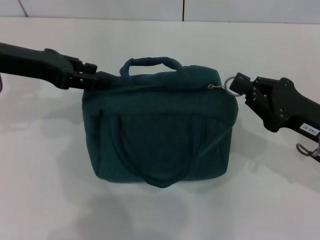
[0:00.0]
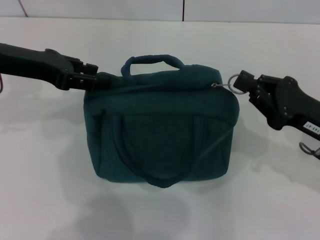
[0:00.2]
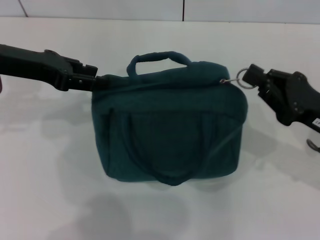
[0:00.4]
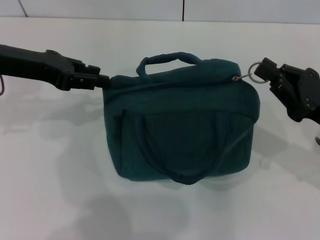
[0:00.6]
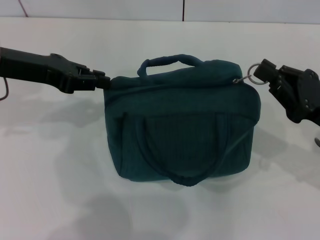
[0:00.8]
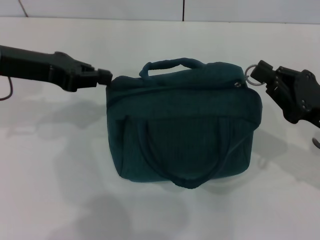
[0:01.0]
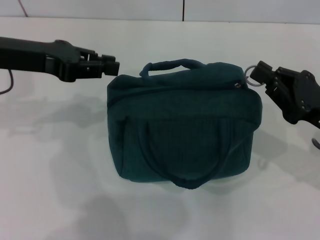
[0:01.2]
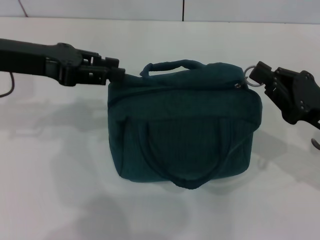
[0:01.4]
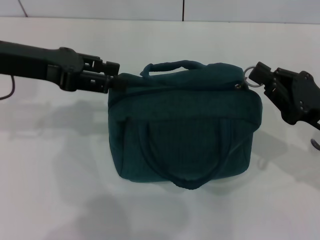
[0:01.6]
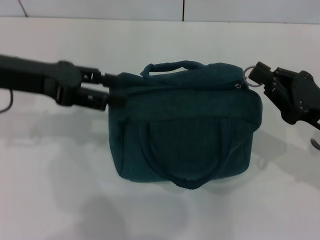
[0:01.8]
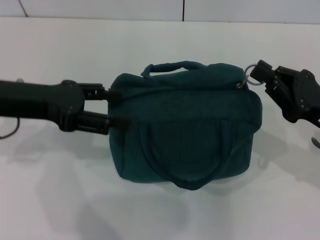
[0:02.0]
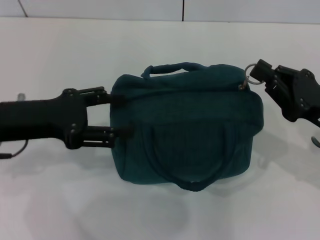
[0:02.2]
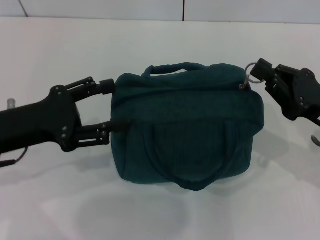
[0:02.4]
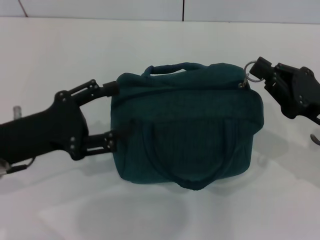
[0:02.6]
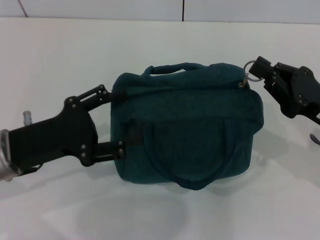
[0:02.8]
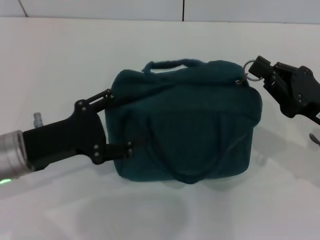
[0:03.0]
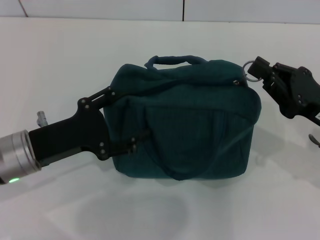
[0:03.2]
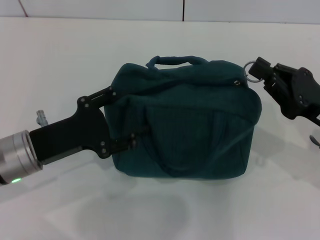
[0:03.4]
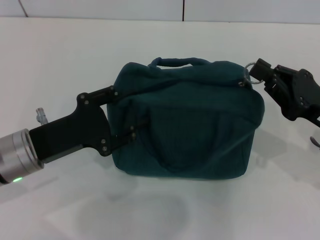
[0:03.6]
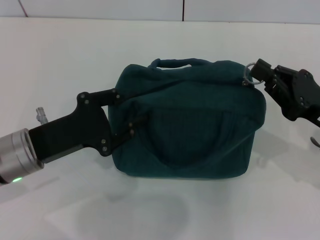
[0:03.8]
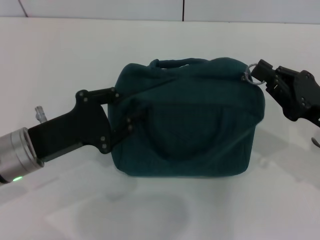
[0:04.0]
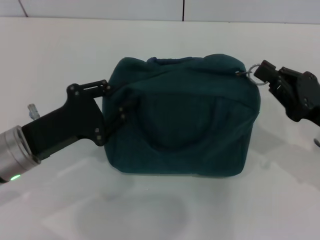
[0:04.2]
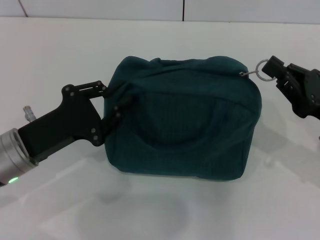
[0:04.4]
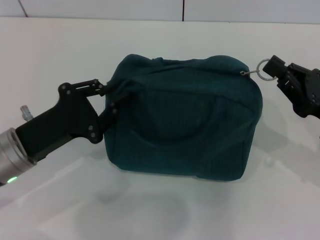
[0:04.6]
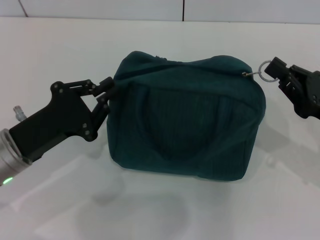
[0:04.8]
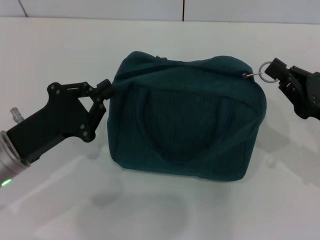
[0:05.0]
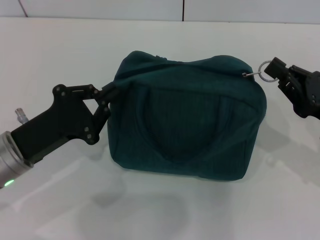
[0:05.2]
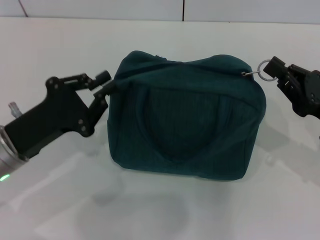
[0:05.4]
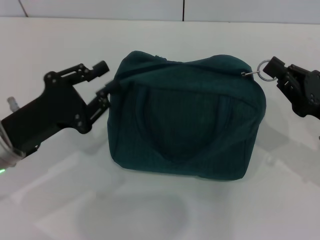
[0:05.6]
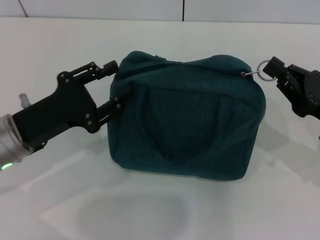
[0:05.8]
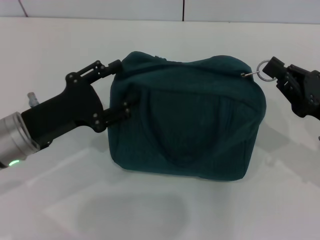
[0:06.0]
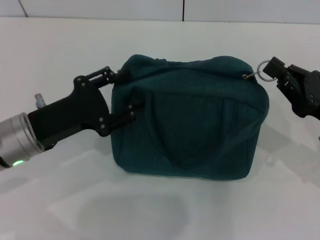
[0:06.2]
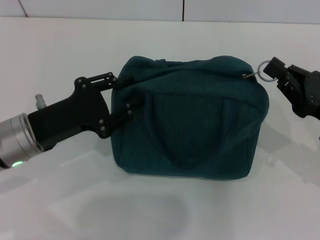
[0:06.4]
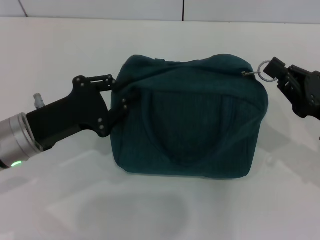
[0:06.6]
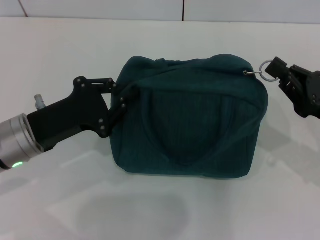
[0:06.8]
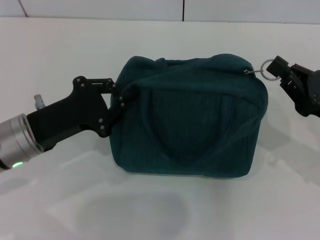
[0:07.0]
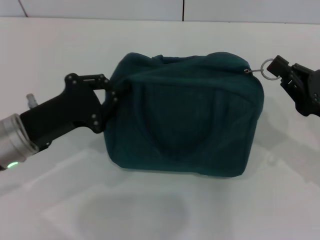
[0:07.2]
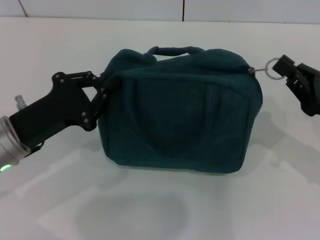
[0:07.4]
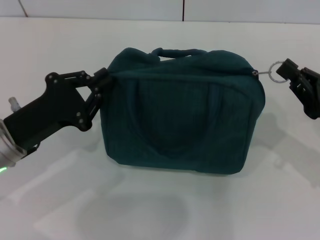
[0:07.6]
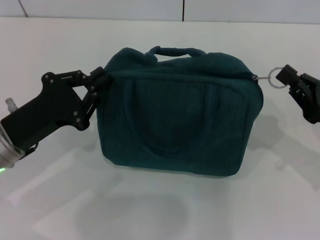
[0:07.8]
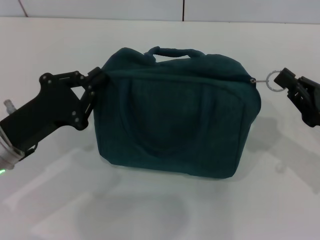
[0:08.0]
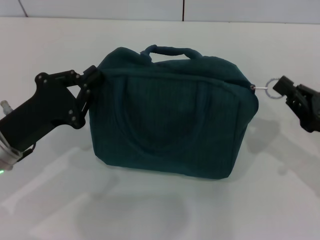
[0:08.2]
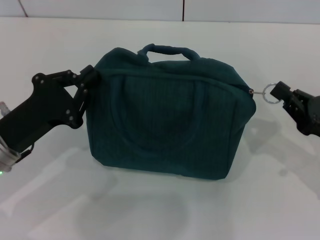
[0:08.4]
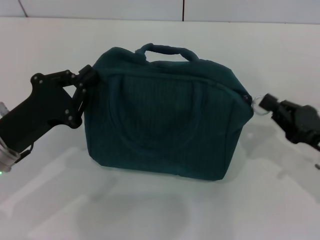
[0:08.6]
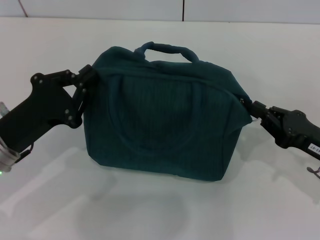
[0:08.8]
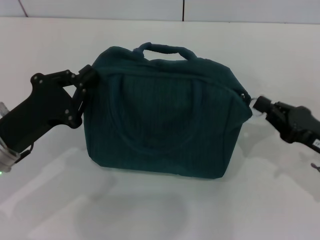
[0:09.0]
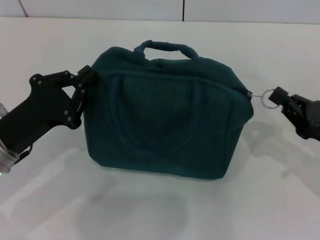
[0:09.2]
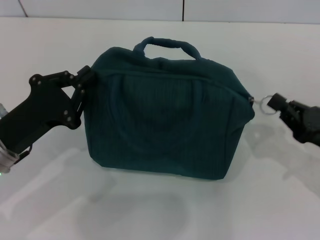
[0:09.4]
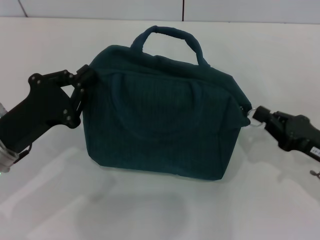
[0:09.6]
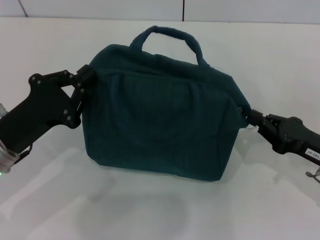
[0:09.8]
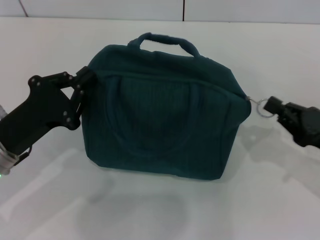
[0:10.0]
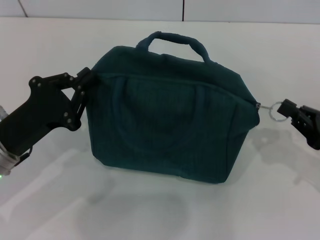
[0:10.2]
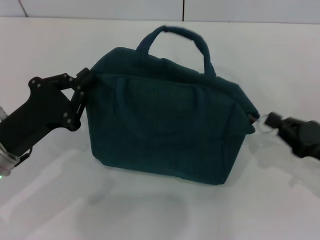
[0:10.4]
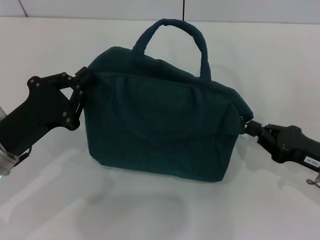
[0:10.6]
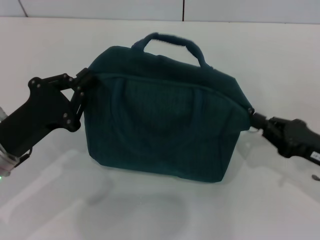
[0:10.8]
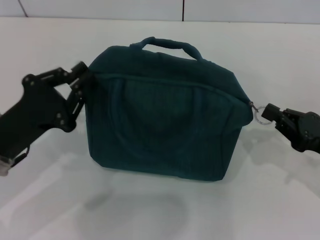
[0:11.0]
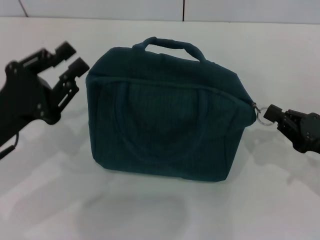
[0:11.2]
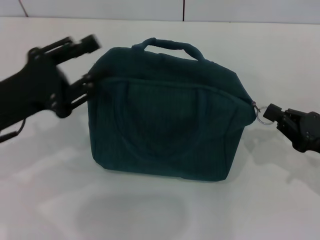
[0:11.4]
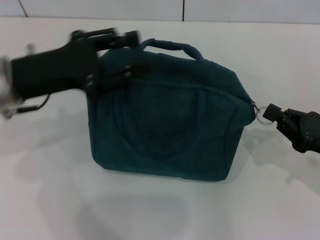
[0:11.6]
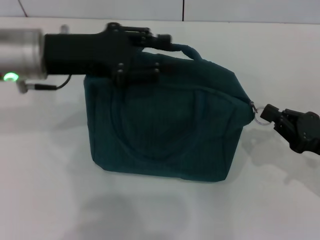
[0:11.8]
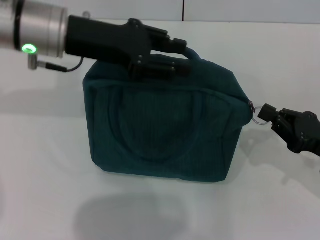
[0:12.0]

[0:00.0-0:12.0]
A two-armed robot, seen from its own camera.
0:00.0 to 0:01.6: The grippers stay close to where they were, moving slightly.
0:01.6 to 0:03.0: The left gripper goes about 15 cm downward and backward, and opens its fingers.
0:03.0 to 0:04.4: The left gripper closes its fingers.
0:04.4 to 0:06.0: The grippers stay close to where they were, moving slightly.
0:06.0 to 0:07.6: The left gripper closes up.
0:07.6 to 0:10.4: There are only small adjustments of the grippers.
0:10.4 to 0:12.0: The left gripper goes approximately 20 cm upward, forward and to the right, and opens its fingers.

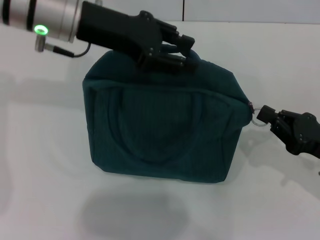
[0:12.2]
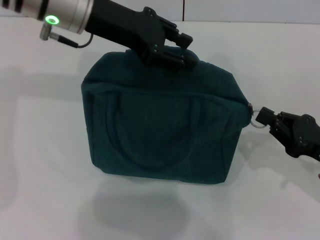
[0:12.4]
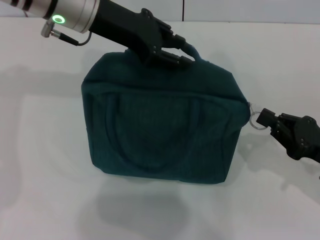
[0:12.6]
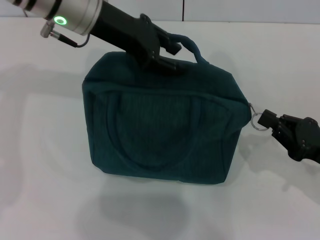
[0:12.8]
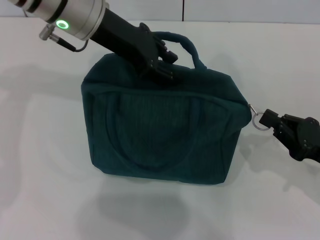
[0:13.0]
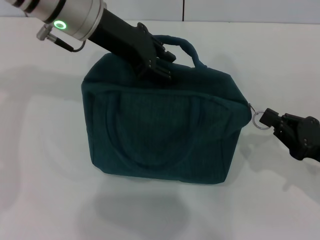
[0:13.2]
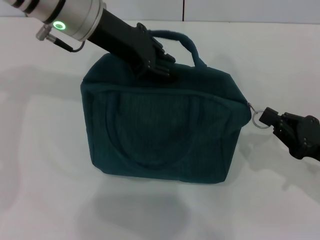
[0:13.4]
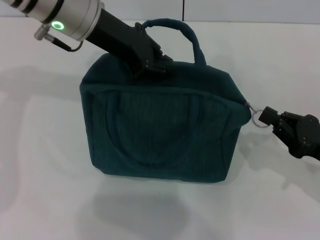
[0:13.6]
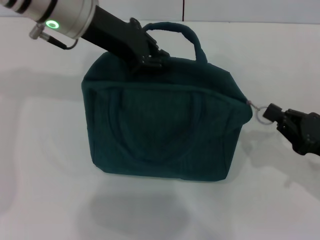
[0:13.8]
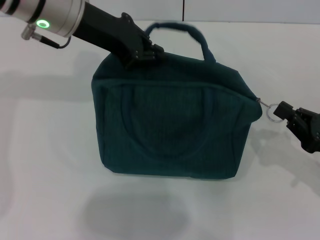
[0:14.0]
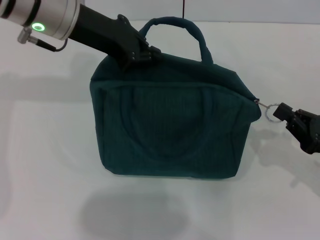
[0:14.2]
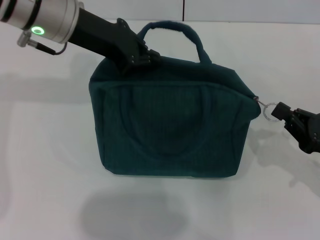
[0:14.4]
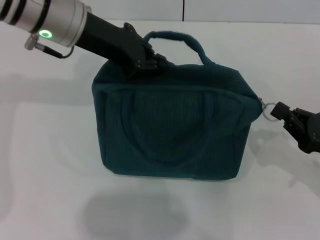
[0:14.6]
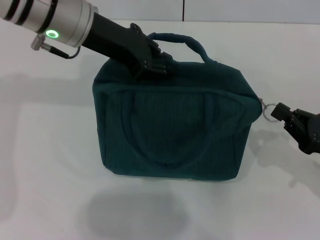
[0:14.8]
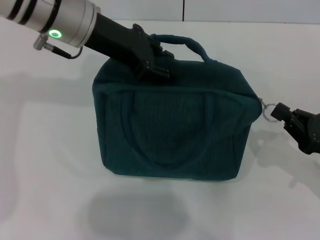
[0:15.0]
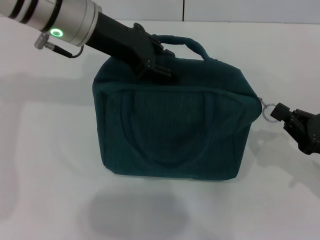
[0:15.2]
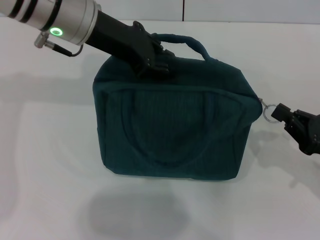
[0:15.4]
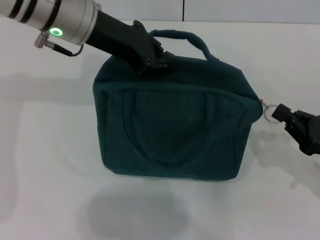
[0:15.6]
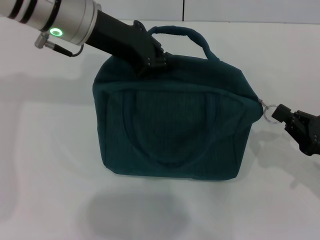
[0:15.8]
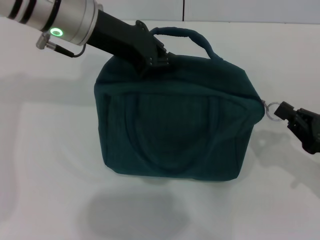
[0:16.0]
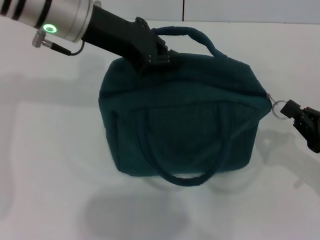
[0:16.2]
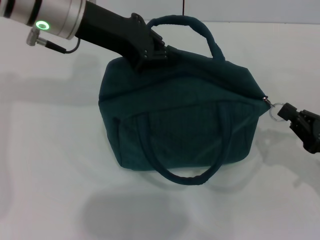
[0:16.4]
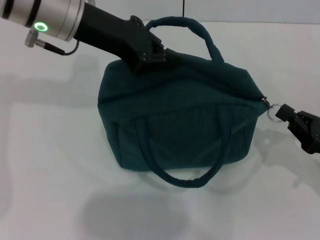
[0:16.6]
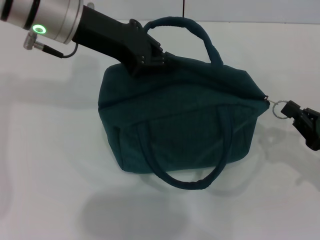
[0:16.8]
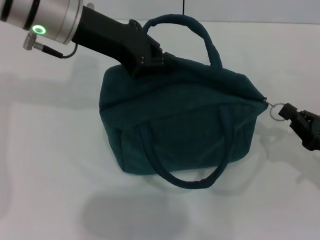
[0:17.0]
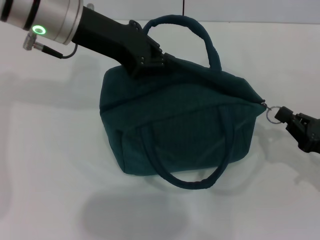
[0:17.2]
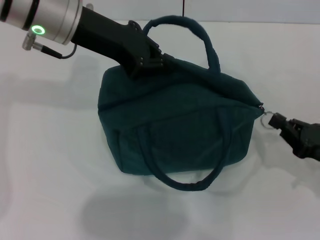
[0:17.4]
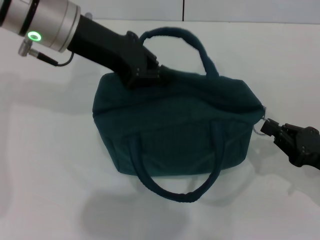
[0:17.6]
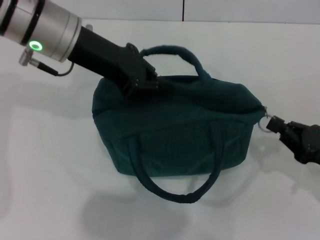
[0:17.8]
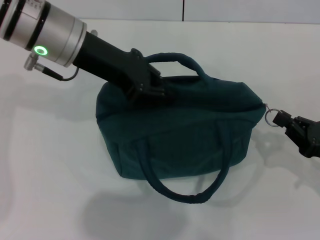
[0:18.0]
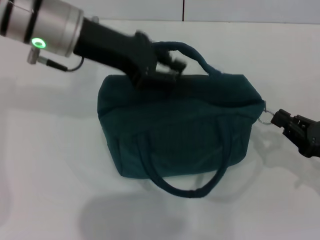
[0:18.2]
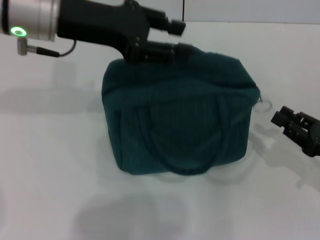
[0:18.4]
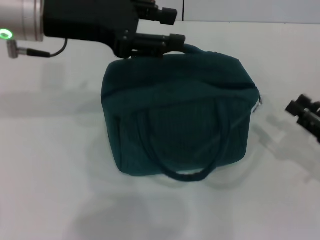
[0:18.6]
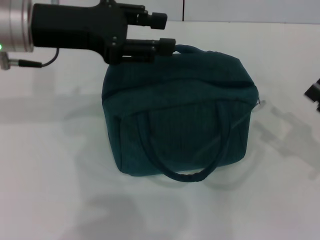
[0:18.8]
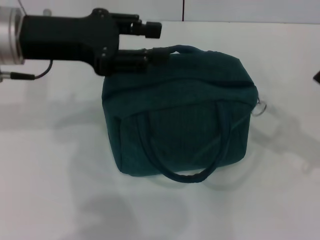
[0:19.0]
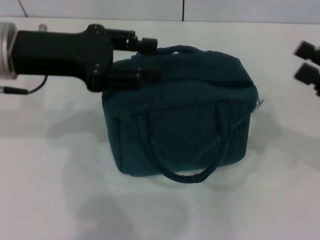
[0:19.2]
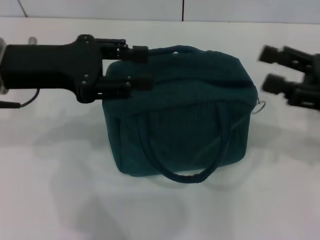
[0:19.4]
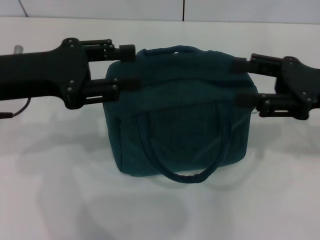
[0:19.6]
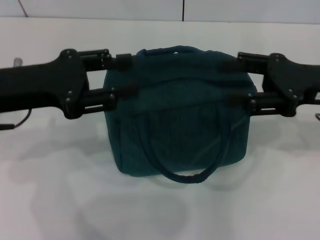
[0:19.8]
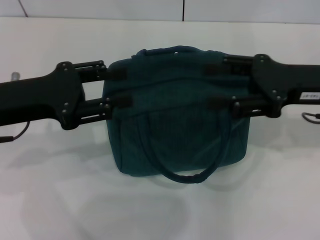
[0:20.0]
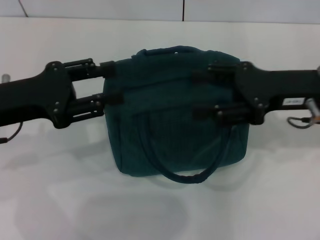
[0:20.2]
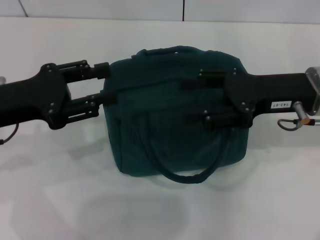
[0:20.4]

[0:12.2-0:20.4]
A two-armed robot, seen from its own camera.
Step, 0:12.2 to 0:18.0: Hold the lunch bag with your left hand.
0:12.2 to 0:13.8: The left gripper closes its fingers.
0:13.8 to 0:15.4: The grippers move only a little.
0:15.4 to 0:17.2: The left gripper closes up.
0:17.2 to 0:18.8: The left gripper moves approximately 5 cm, and opens, while the right gripper opens up.
0:18.8 to 0:20.4: The right gripper moves to the left, upward and forward, roughly 20 cm, and opens, while the left gripper heads downward, backward and to the left, covering about 15 cm.
